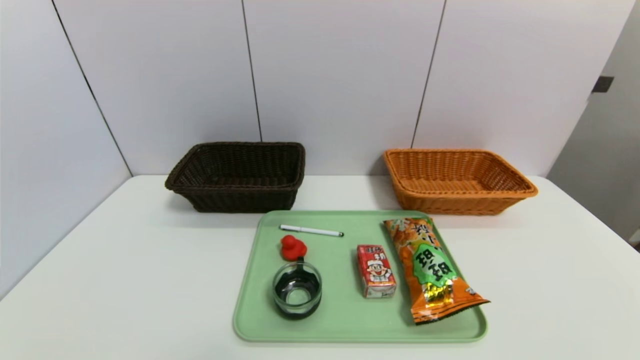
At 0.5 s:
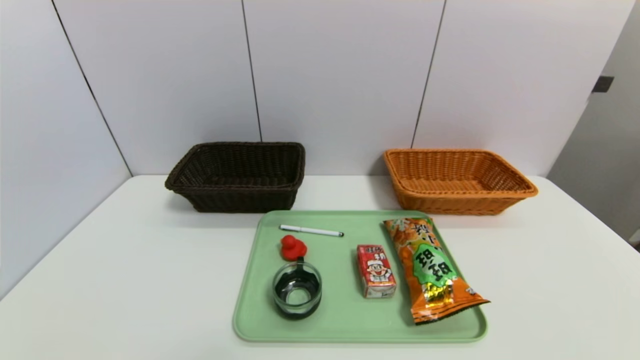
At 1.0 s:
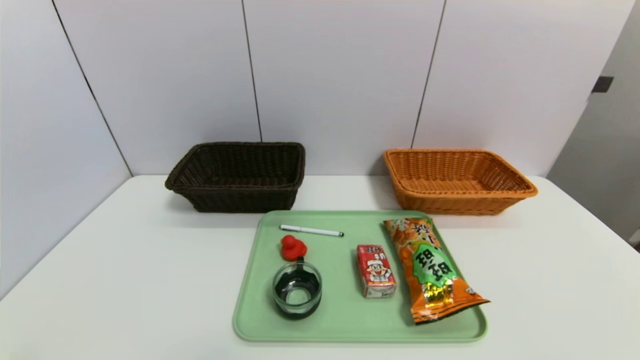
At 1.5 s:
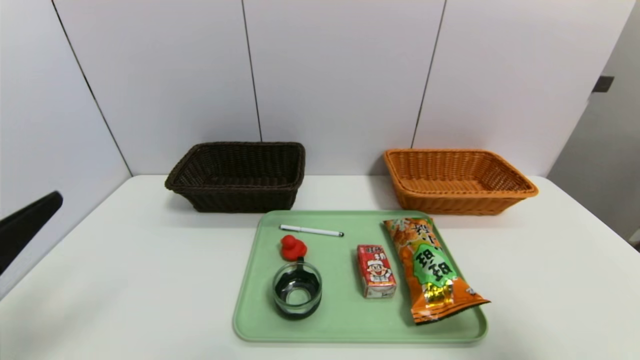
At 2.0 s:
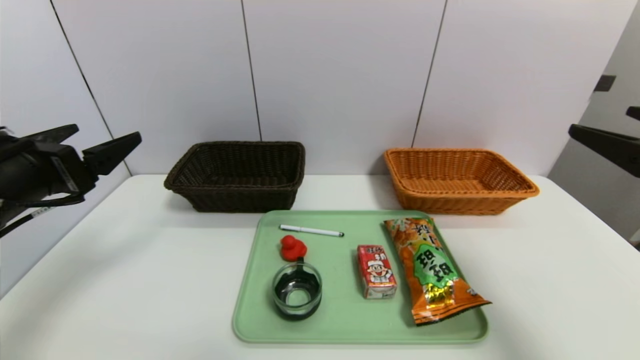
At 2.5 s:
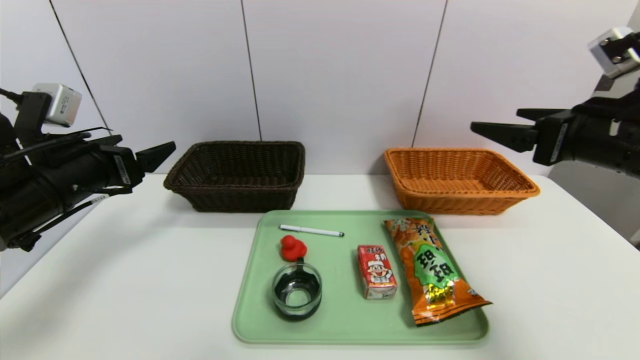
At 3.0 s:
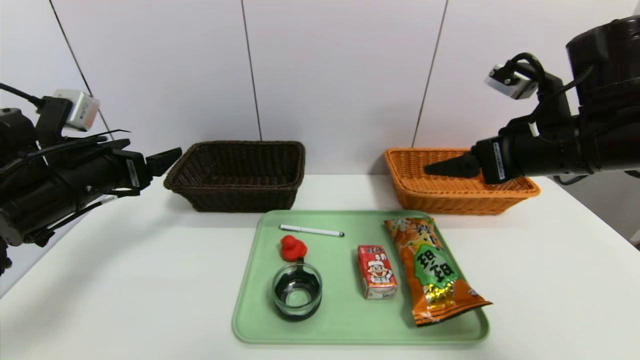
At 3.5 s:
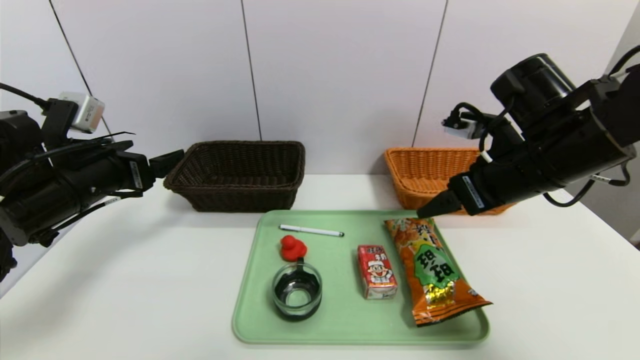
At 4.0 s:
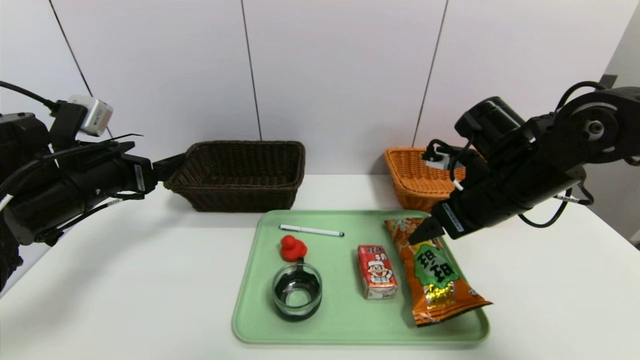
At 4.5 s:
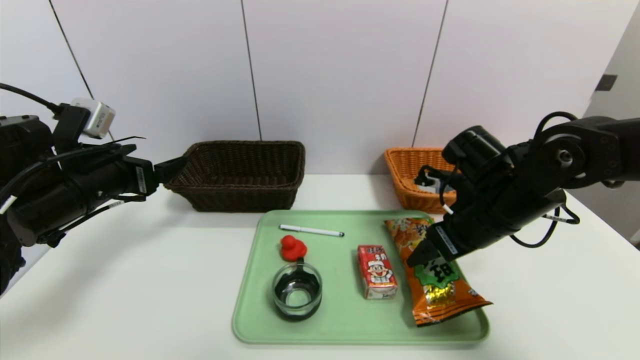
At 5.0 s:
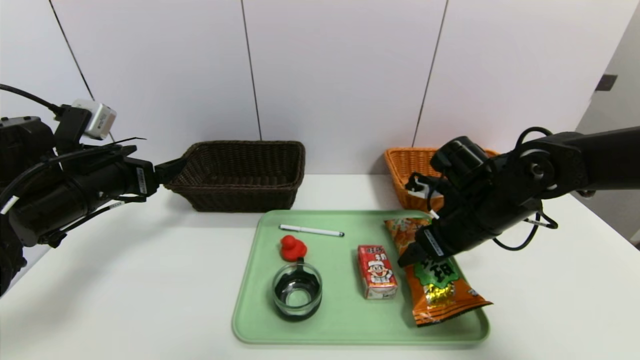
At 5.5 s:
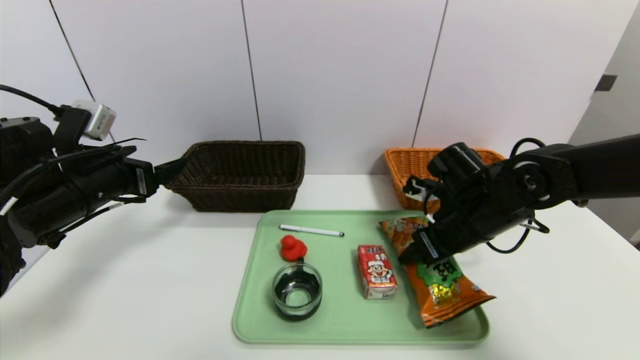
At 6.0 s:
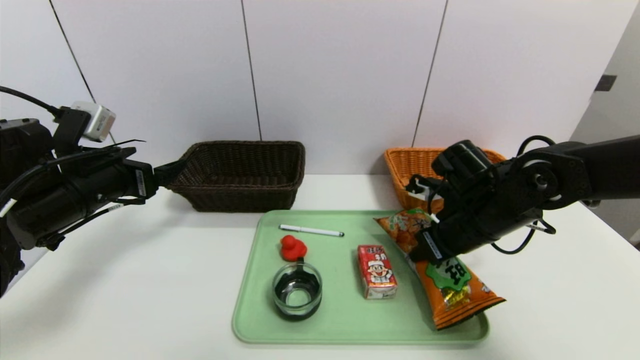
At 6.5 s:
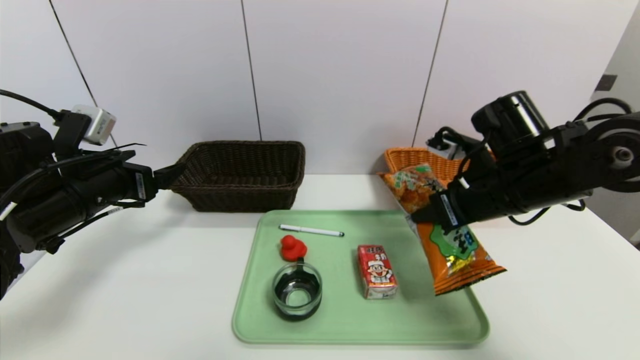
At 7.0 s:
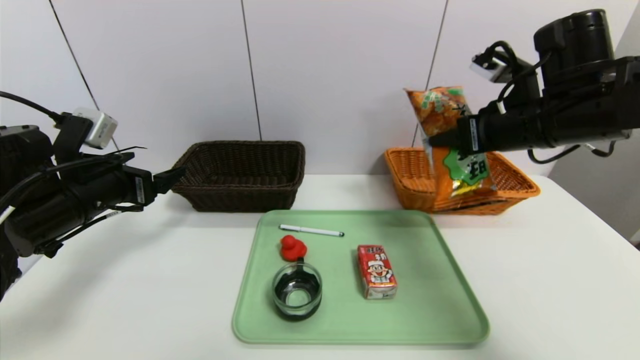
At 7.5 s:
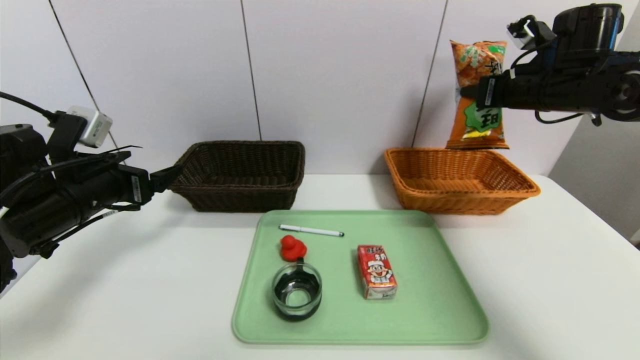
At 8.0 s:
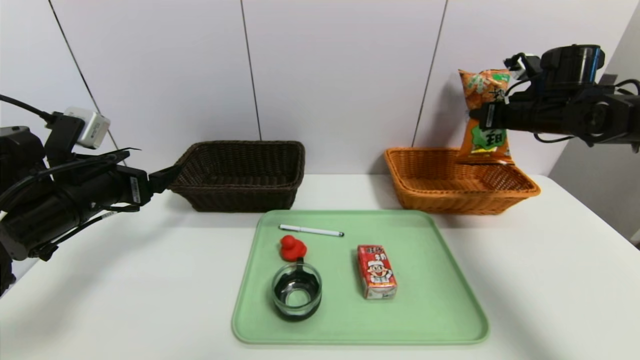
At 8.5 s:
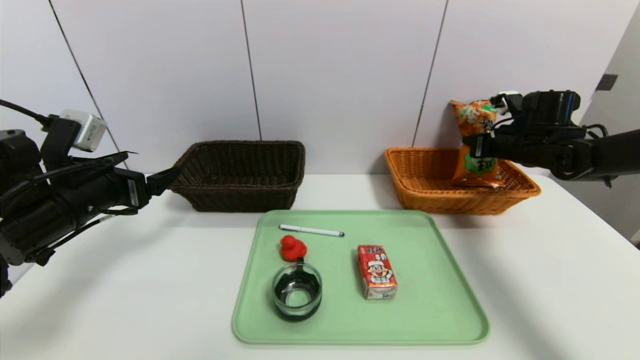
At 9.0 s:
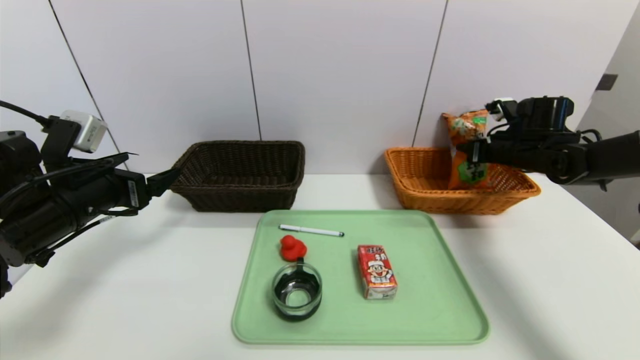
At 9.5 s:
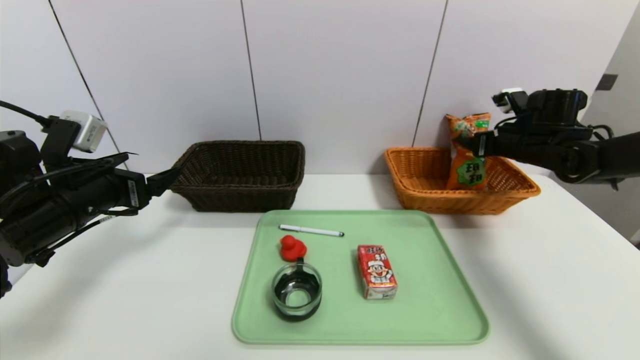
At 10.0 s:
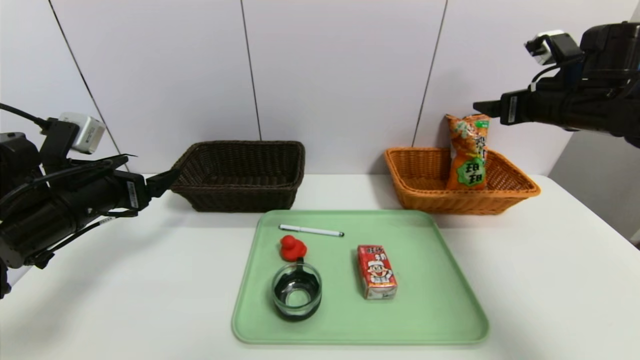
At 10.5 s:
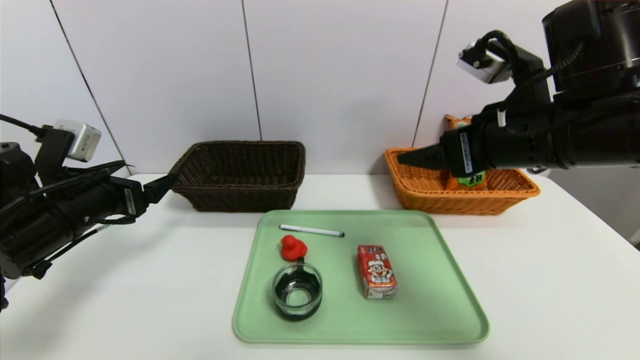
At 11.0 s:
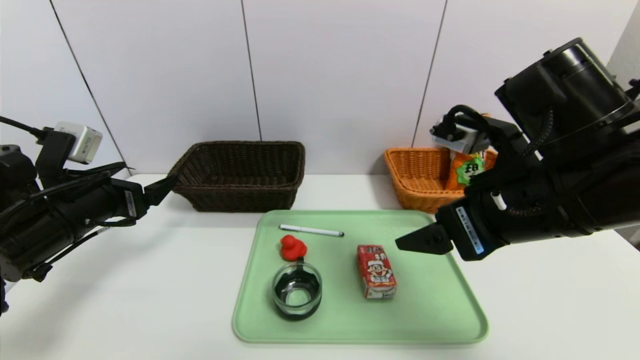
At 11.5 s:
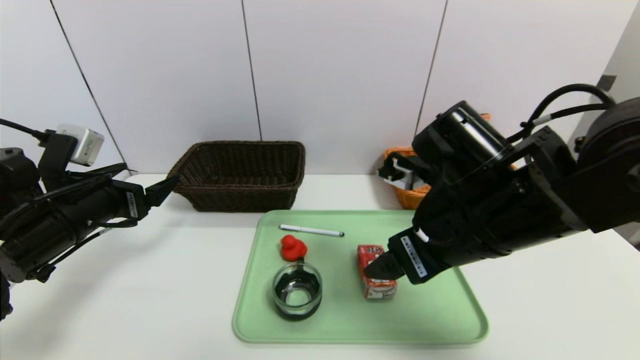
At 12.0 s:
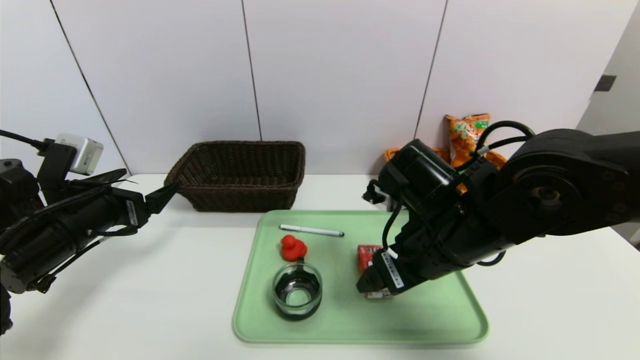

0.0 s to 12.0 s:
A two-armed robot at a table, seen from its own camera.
Task of the whole recording: place the food in the right basket with the right gripper, and place the non food items in the left basket with the left gripper.
Step, 0.0 to 10.0 s: Grasp the cookie and put it in the right basket.
0.0 to 2.0 s: The right gripper shifts some 25 cm upward and forward. Meanwhile the left gripper heads forward and upward, covering some 25 cm.
2.0 to 4.0 s: The left gripper heads forward, covering about 10 cm. Meanwhile the right gripper moves forward, to the left and downward, about 20 cm.
4.0 to 6.0 s: The right gripper moves downward, about 5 cm, and closes up.
6.0 to 8.0 s: The right gripper heads to the right, forward and upward, covering some 20 cm.
8.0 to 10.0 s: The right gripper heads backward, covering approximately 10 cm, and opens its fingers.
10.0 to 12.0 s: The right gripper moves to the left, backward and downward, approximately 25 cm.

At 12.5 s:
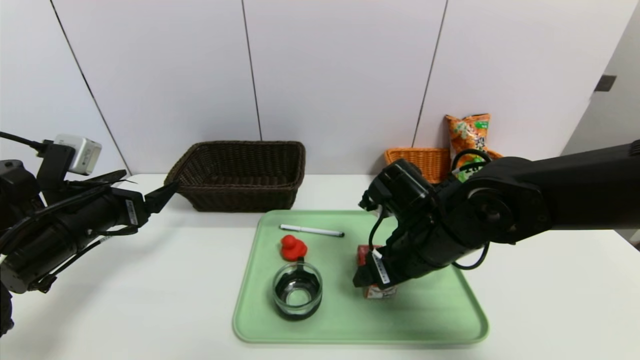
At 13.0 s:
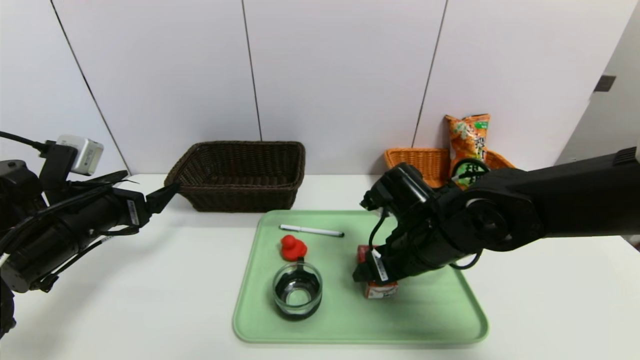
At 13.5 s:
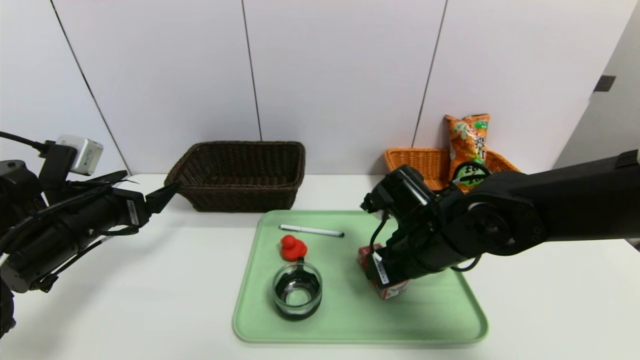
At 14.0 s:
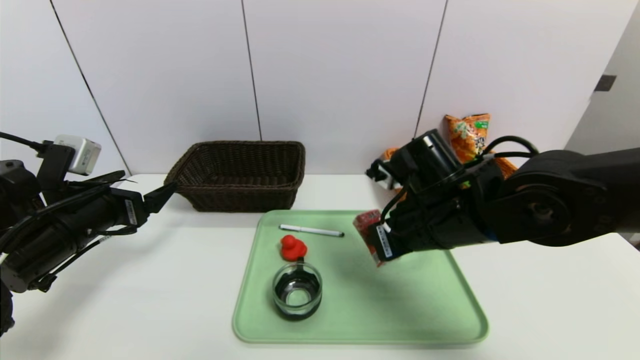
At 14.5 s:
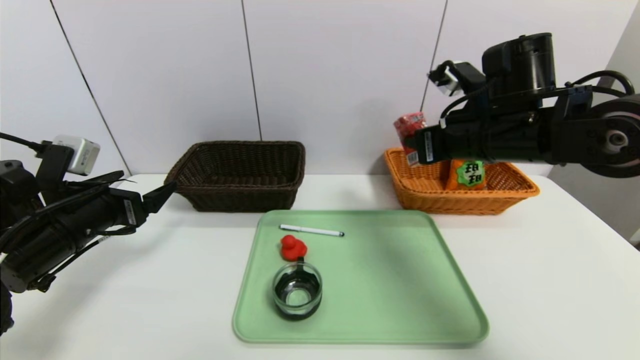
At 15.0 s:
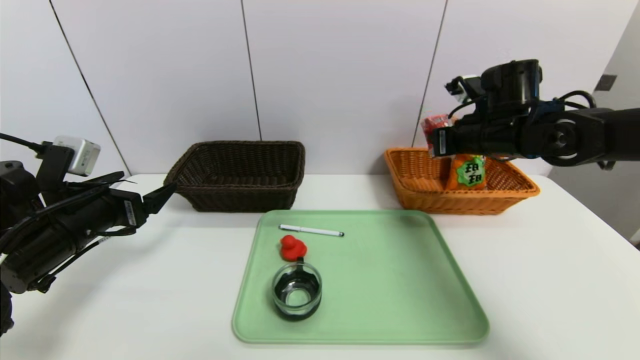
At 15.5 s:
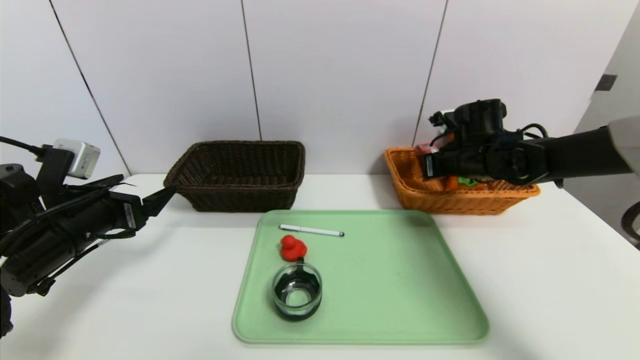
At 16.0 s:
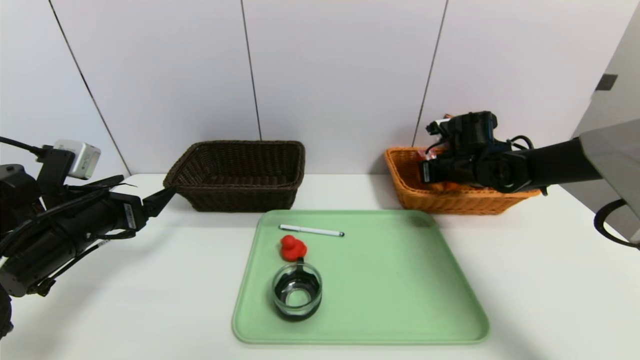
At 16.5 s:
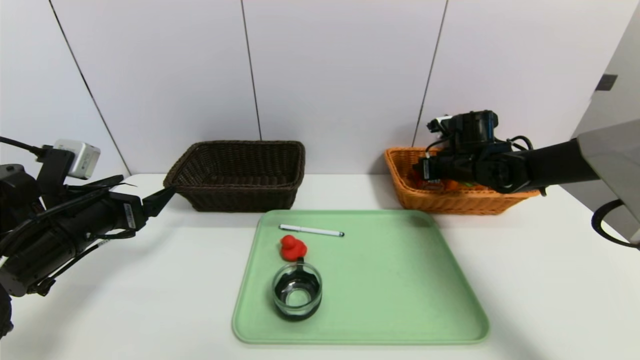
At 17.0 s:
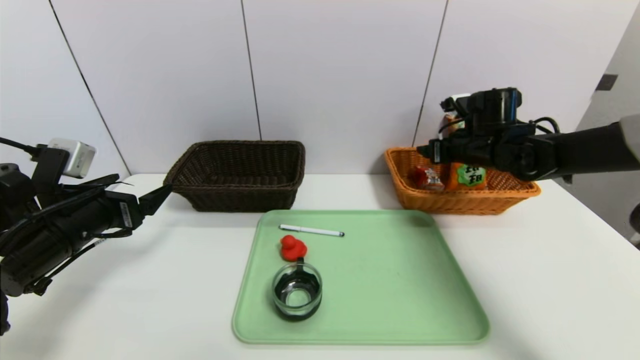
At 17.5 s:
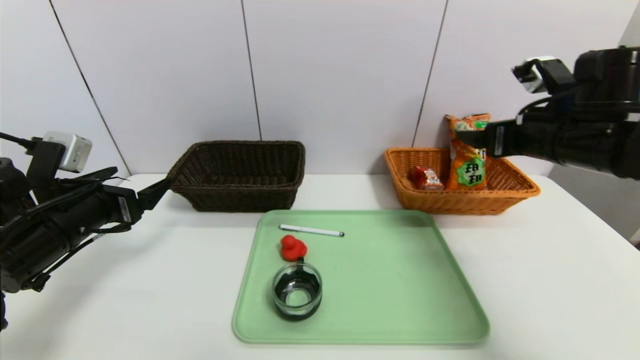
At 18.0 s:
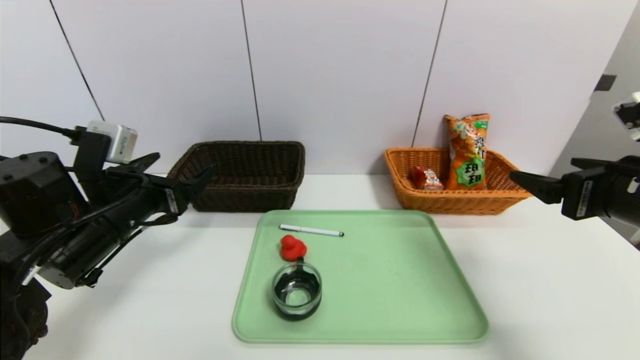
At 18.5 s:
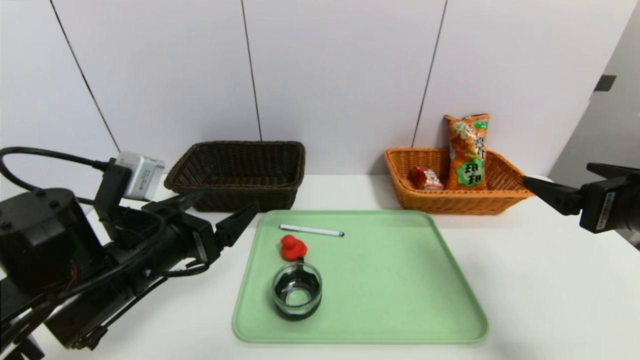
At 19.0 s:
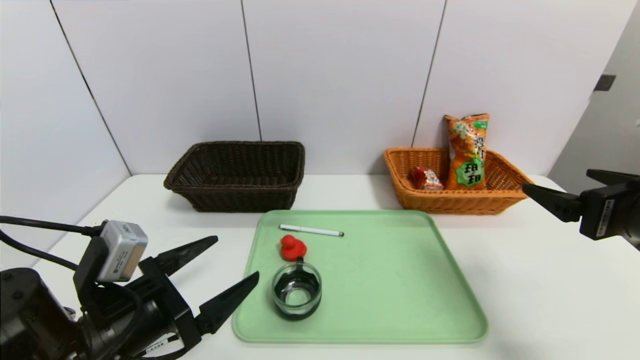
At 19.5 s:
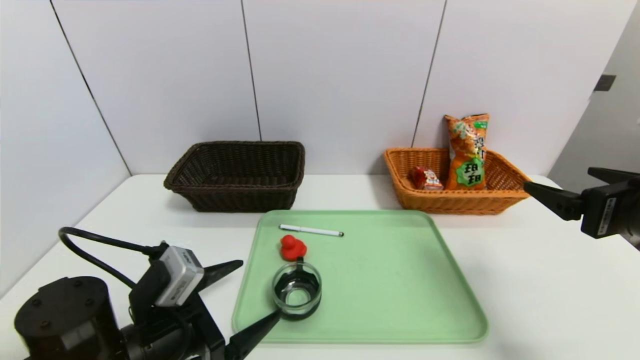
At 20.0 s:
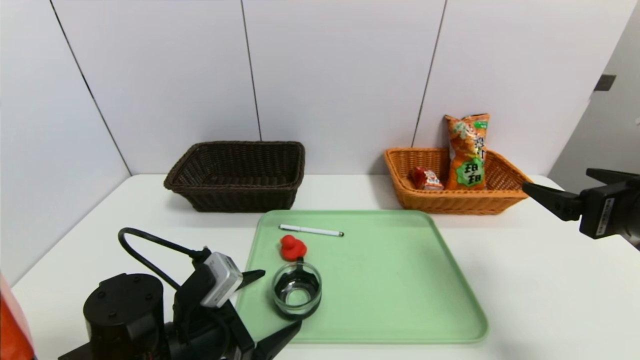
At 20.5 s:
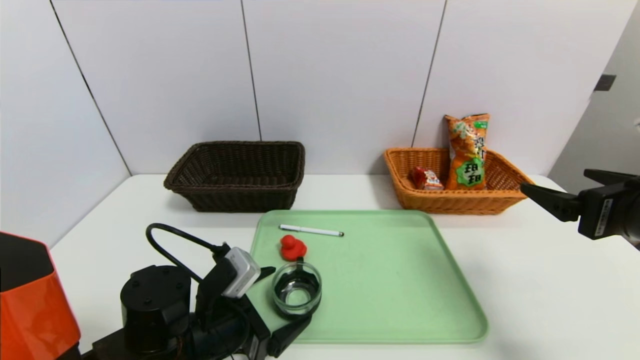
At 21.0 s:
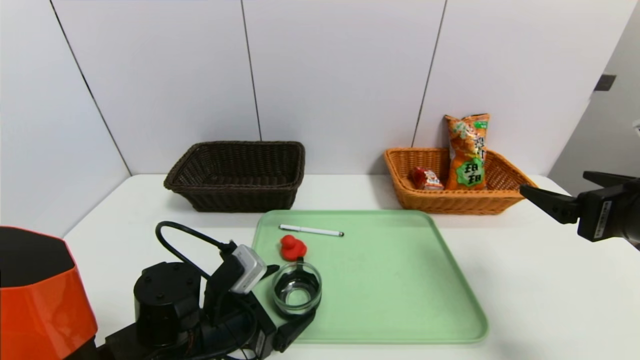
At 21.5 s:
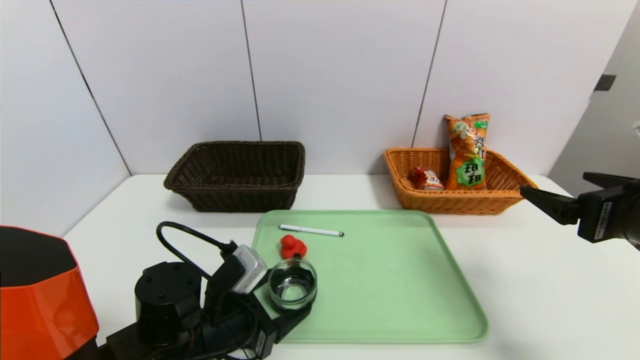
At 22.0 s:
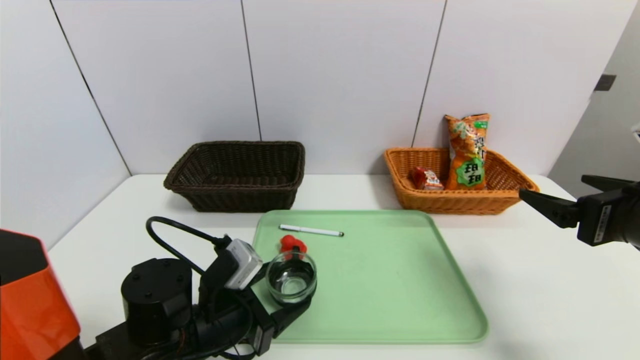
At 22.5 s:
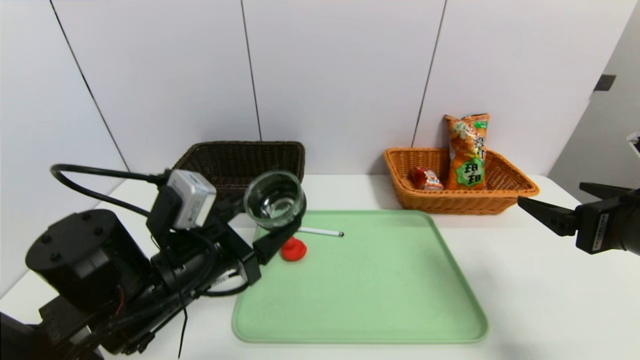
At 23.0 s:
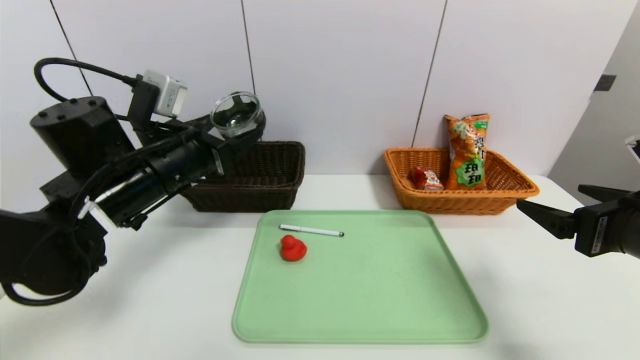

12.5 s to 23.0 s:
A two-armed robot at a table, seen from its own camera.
Task of the whole recording: place the food in the right basket with the right gripper, and place the non food items in the left basket with the left gripper.
Step, 12.5 to 16.5 s: Grasp the milk and put it in the right basket.
12.5 to 14.5 s: The right gripper goes approximately 15 cm upward, to the right and forward, and closes up.
14.5 to 16.5 s: The right gripper shifts some 20 cm forward, downward and to the right, and opens its fingers.
16.5 to 19.0 s: The right gripper heads backward, covering about 30 cm, and opens its fingers, while the left gripper shifts roughly 15 cm to the right and backward.
19.0 to 21.0 s: The left gripper is displaced to the right and downward by some 10 cm.
21.0 to 23.0 s: The left gripper is displaced upward and forward by approximately 20 cm.
